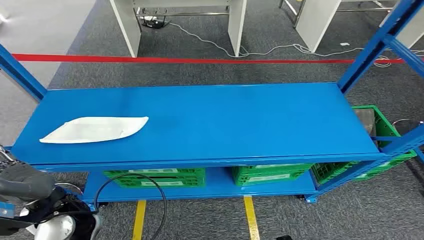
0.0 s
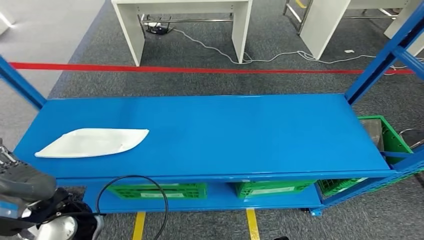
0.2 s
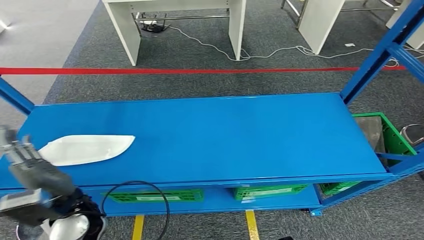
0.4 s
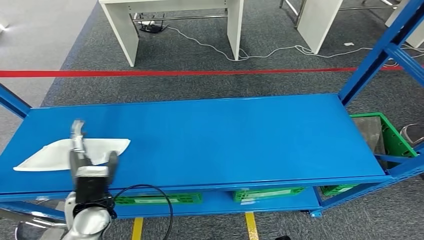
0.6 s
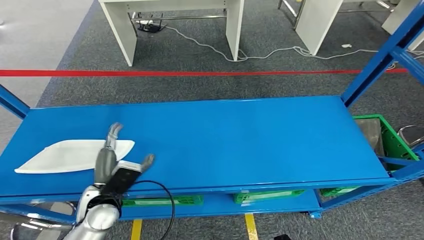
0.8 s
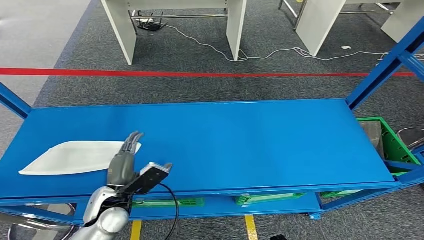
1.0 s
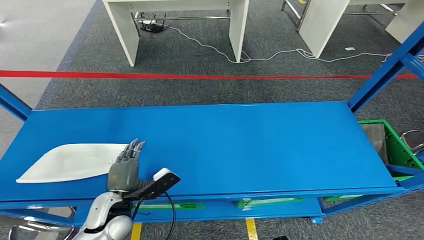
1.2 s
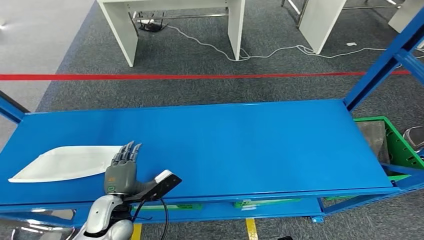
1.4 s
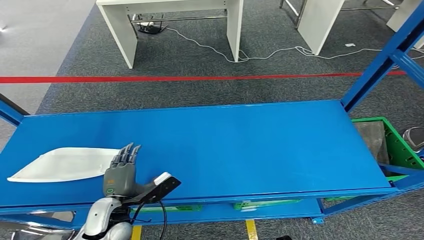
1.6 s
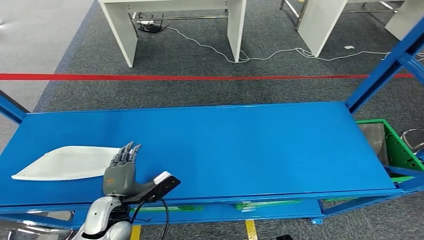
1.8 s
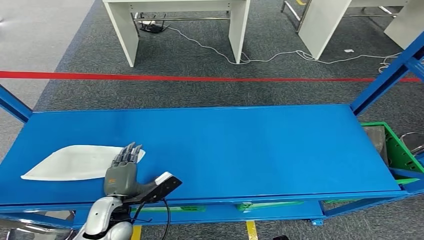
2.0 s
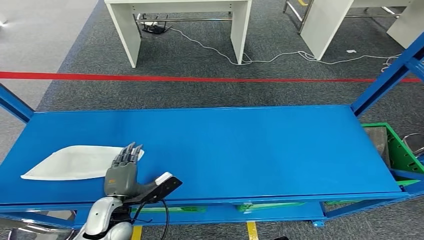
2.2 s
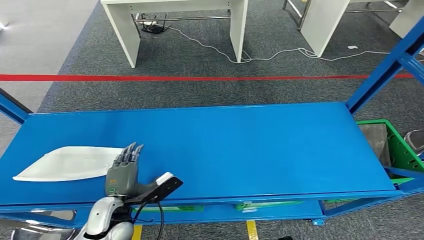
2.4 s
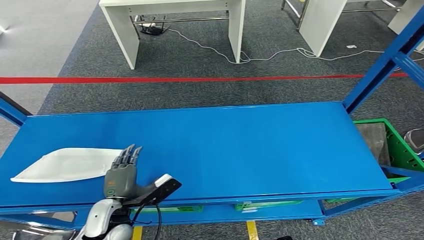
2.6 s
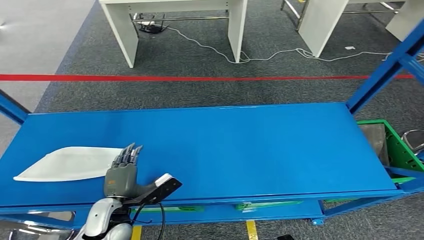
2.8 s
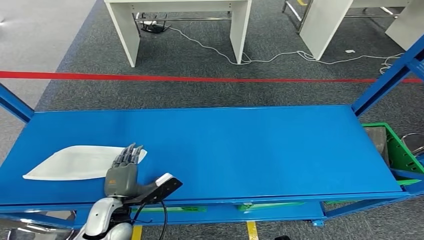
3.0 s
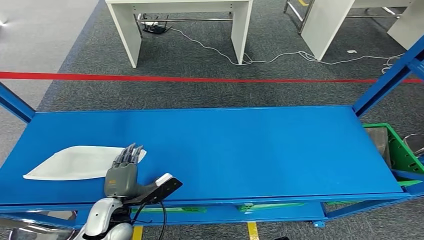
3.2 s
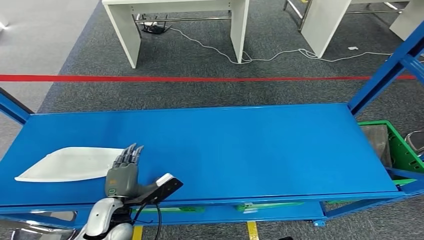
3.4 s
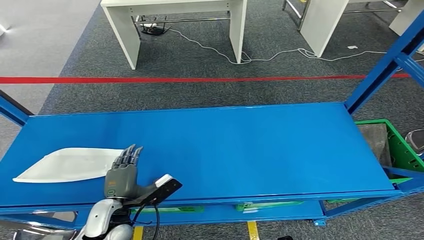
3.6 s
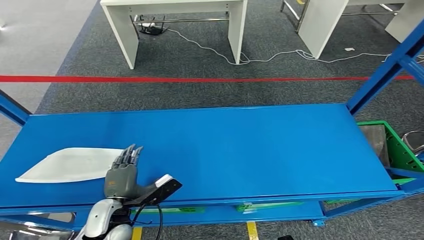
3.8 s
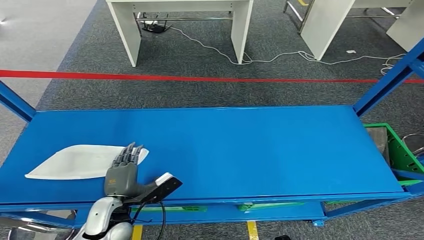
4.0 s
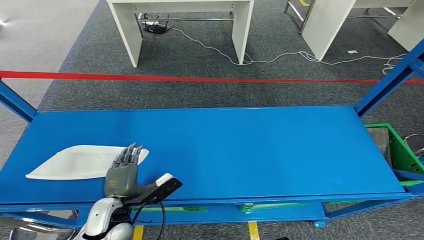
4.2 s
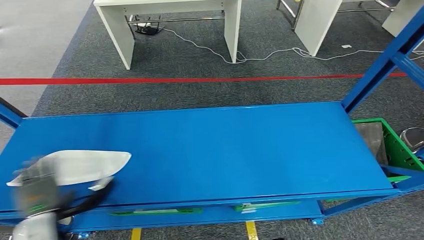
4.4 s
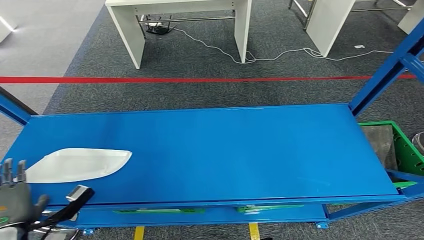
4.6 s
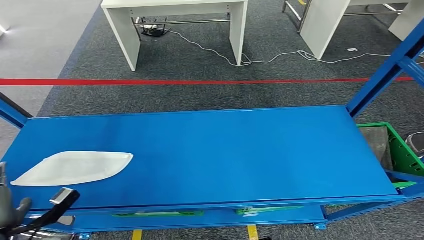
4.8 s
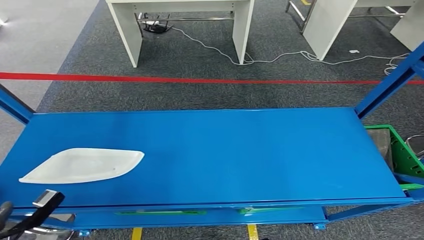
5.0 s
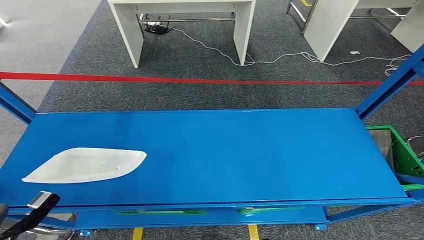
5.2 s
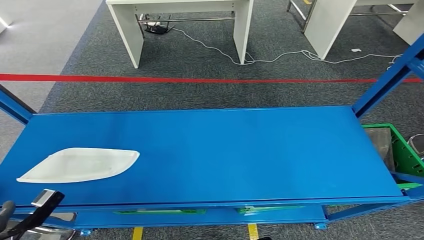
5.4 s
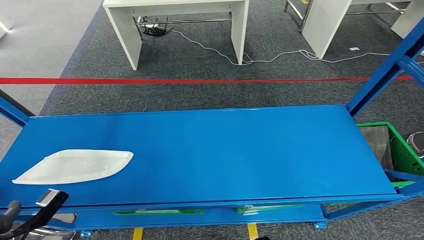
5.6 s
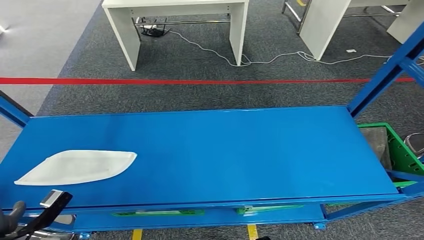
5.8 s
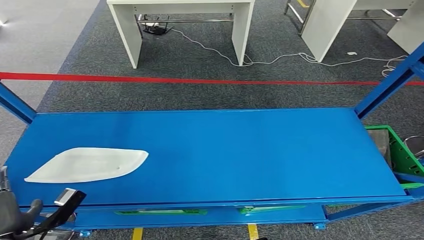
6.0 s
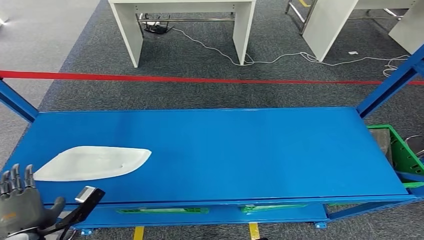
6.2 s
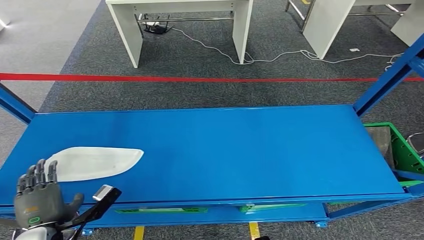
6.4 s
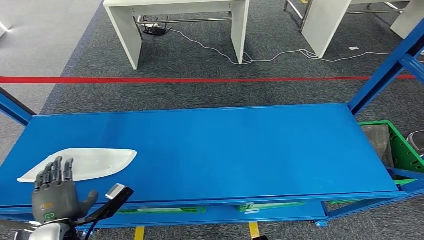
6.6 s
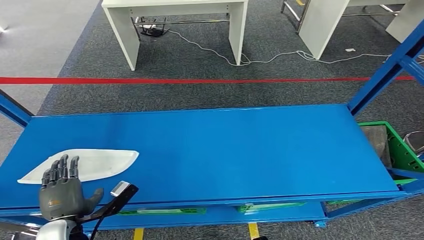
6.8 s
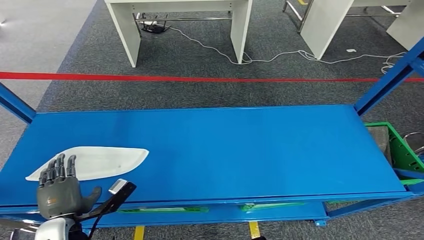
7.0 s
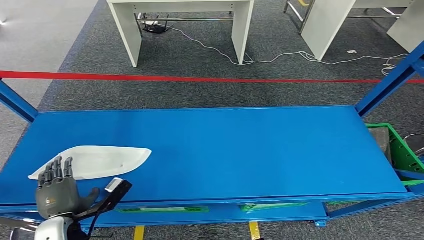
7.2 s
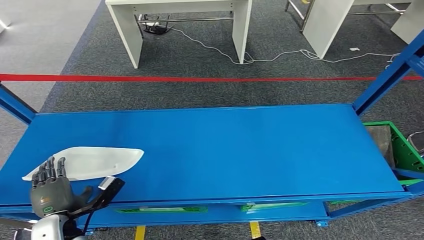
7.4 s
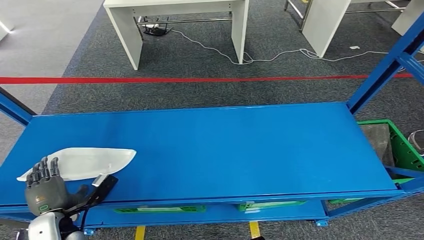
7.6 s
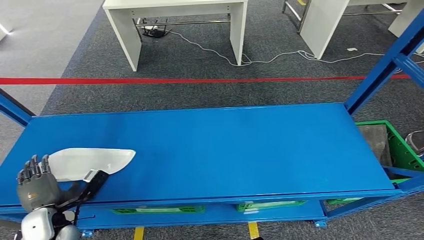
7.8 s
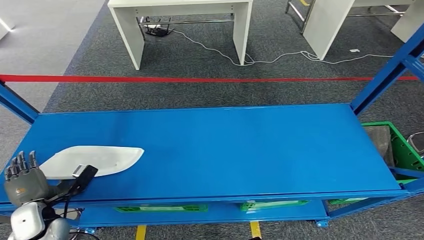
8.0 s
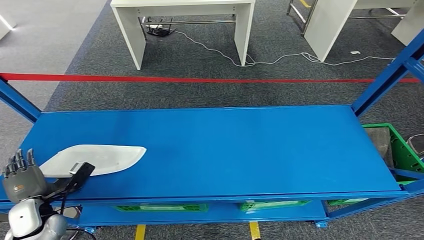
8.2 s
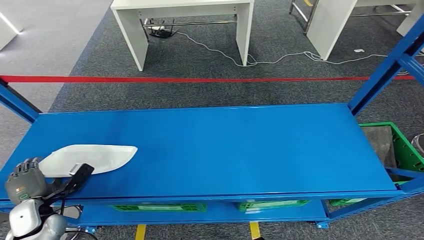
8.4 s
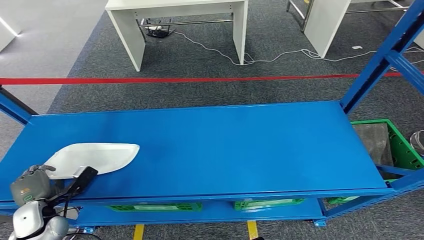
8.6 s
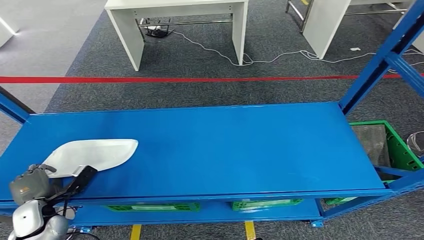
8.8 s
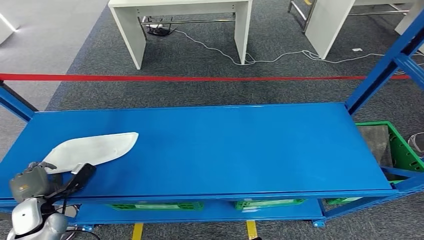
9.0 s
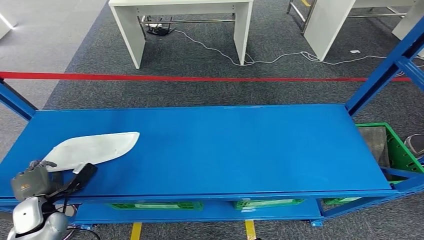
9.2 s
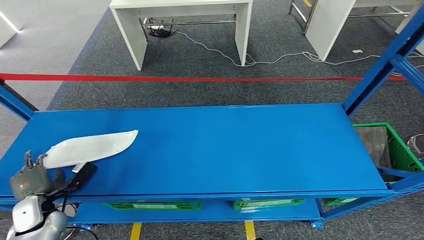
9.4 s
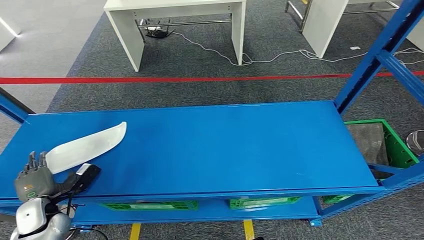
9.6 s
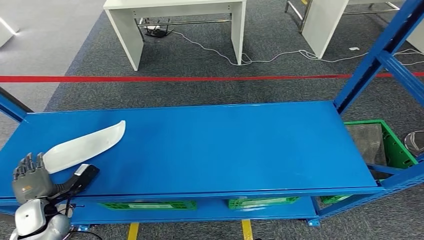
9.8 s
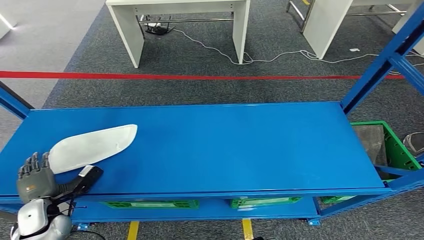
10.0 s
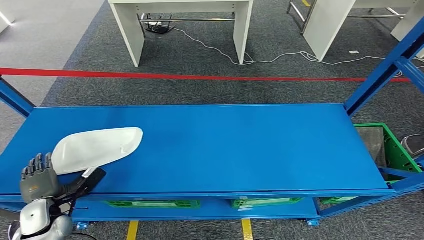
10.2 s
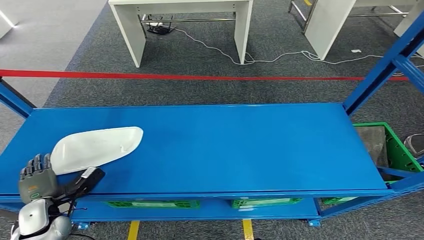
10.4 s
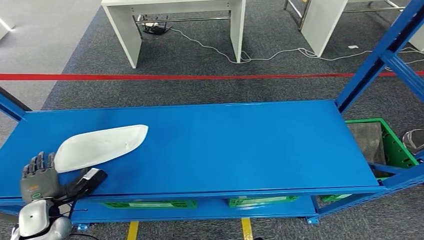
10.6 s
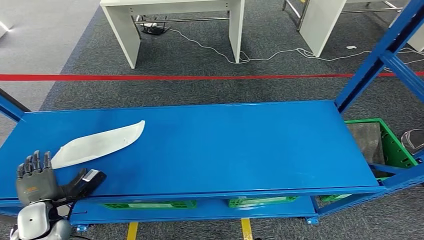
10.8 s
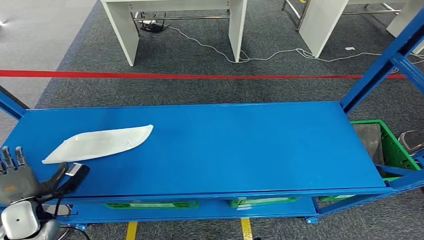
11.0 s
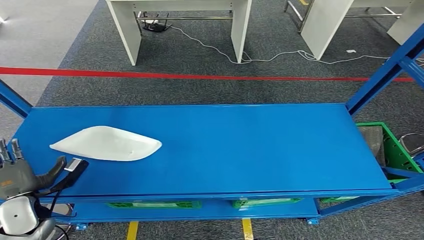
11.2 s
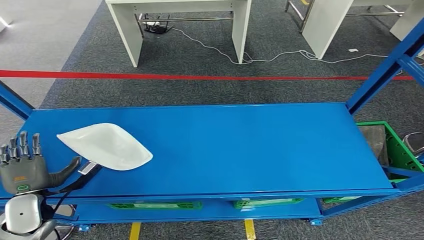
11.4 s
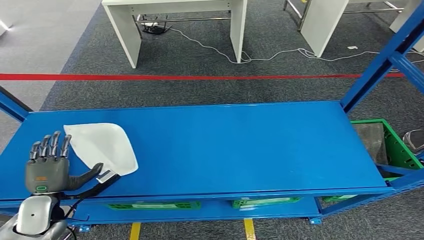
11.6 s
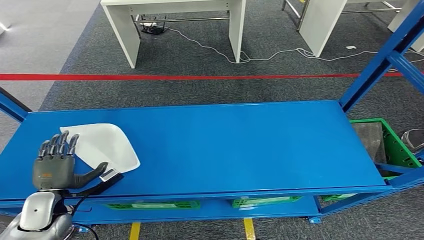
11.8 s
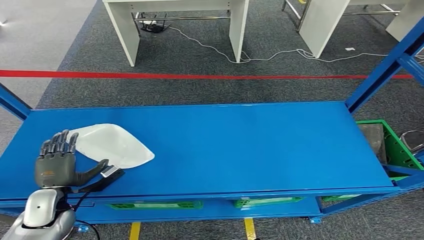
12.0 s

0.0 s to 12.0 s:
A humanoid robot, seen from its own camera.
1.6 to 3.0 s: The two hands keep their place.
3.0 to 4.4 s: The left hand is displaced to the left by approximately 10 cm.
4.4 to 6.0 s: The left hand is displaced backward by approximately 5 cm.
6.0 to 7.6 s: The left hand goes approximately 10 cm downward and forward.
7.6 to 9.0 s: The left hand goes about 5 cm to the left.
9.0 to 10.4 s: The hands stay close to where they were, moving slightly.

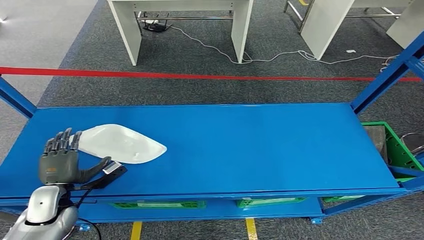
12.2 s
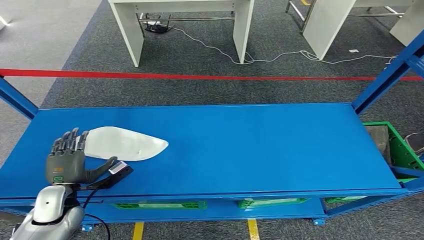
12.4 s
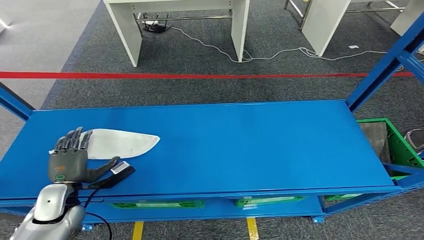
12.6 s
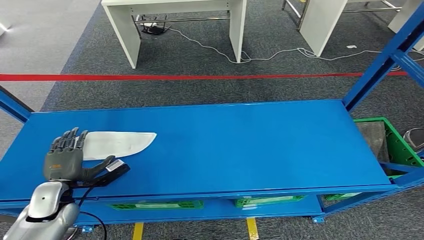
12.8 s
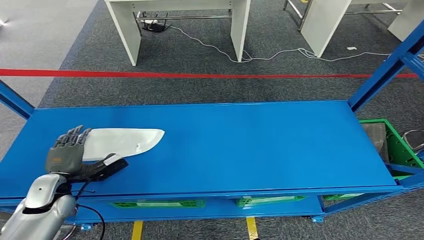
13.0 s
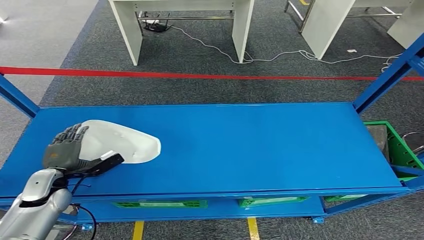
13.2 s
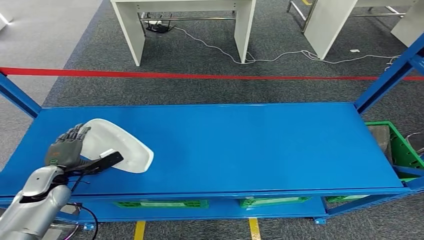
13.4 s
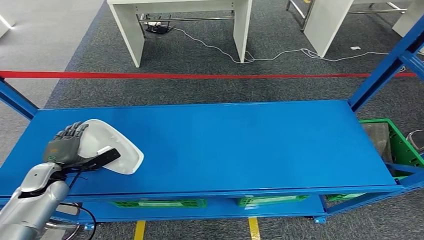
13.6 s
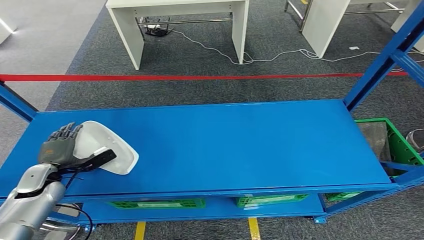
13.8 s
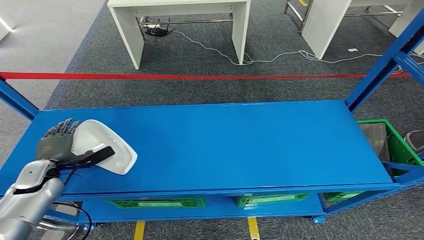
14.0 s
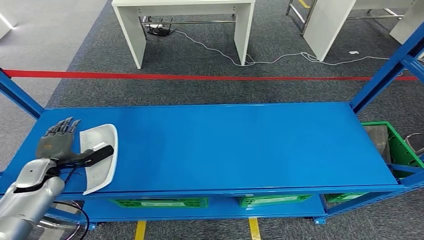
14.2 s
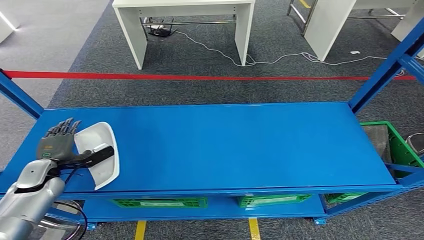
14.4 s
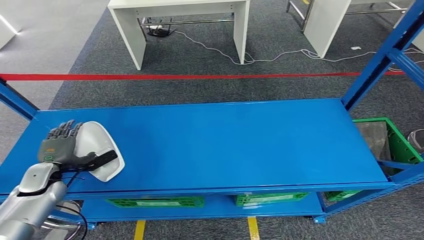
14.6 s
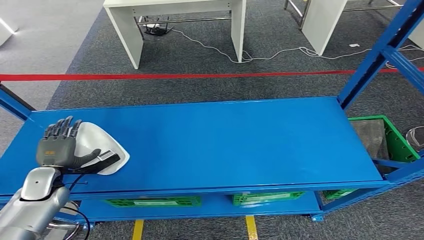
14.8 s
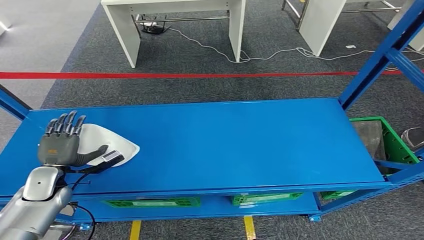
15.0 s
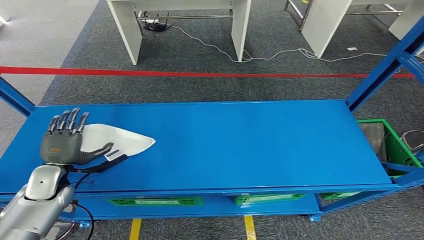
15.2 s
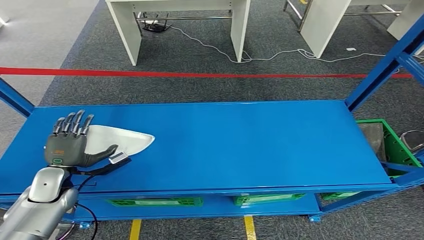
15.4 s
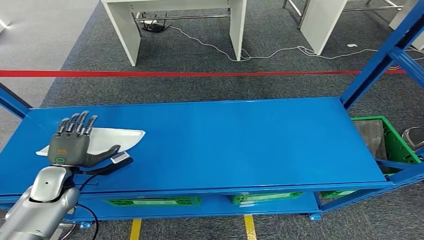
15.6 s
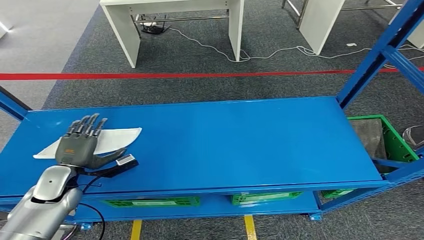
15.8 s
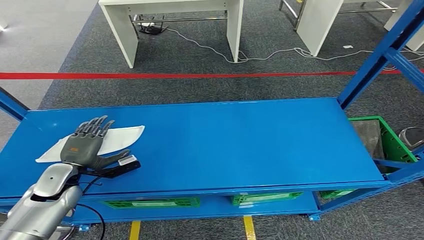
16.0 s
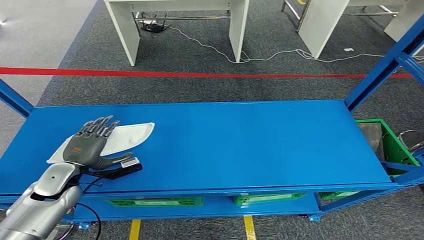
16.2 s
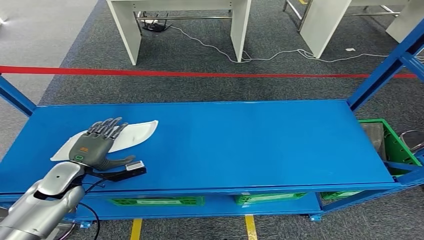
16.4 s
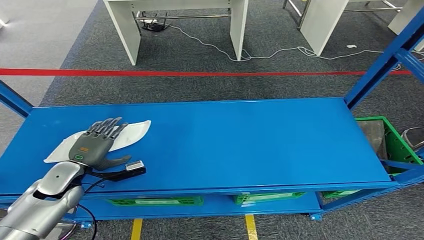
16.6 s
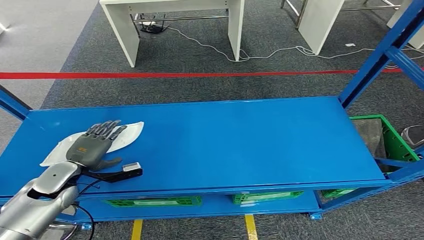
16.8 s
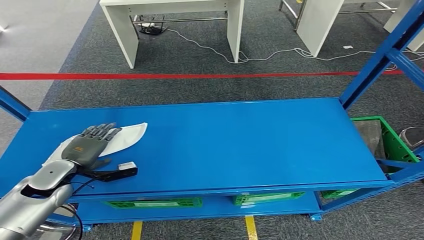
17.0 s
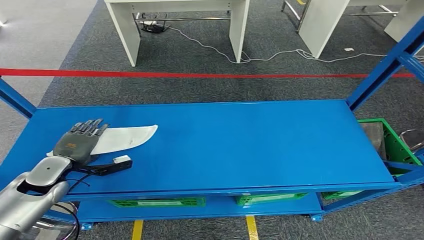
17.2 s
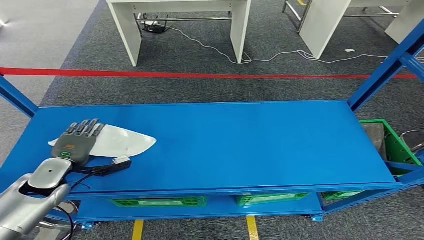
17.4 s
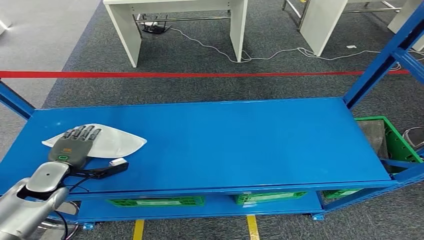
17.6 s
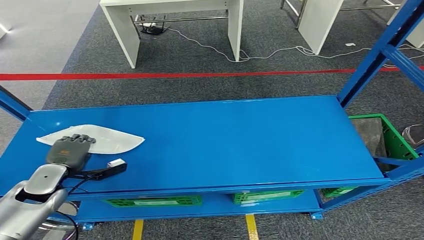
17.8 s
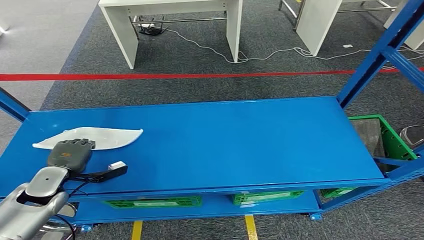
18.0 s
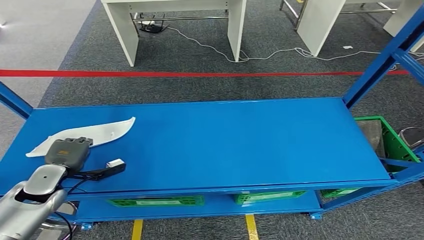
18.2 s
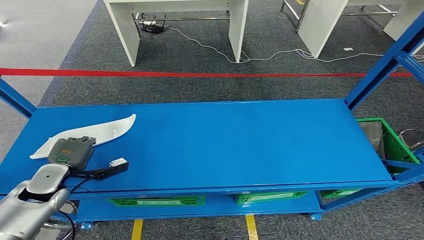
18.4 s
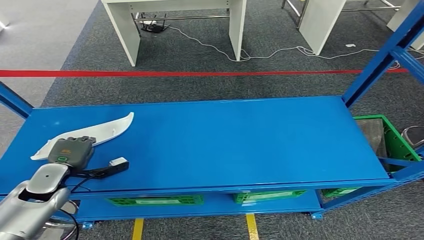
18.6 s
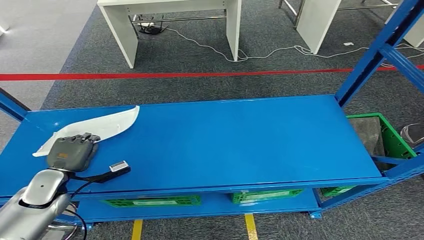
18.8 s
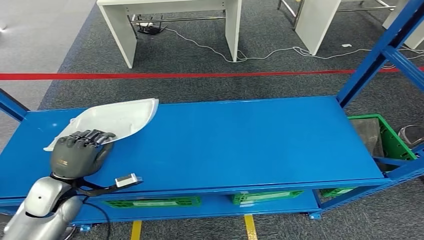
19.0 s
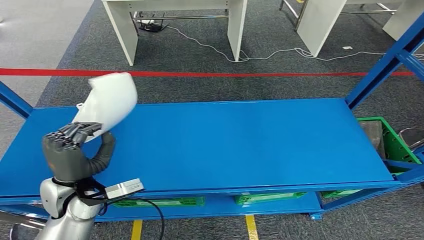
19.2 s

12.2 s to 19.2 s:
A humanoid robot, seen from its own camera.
12.2 to 13.6 s: The left hand is displaced forward and to the left by some 10 cm.
15.0 to 16.4 s: The hands make only small movements.
